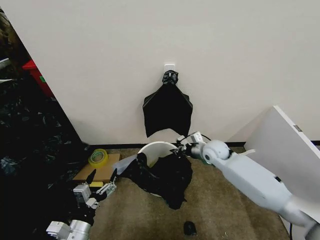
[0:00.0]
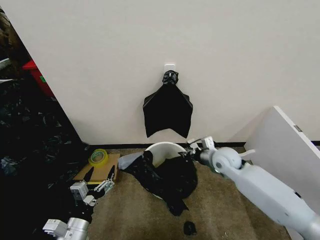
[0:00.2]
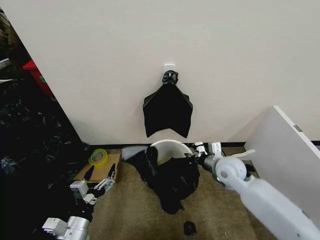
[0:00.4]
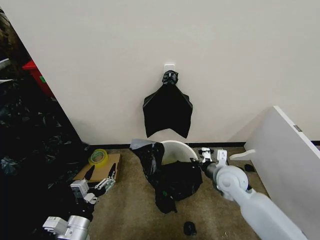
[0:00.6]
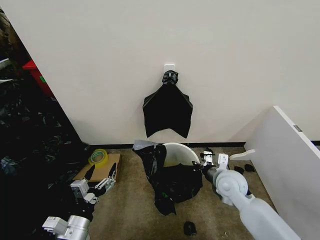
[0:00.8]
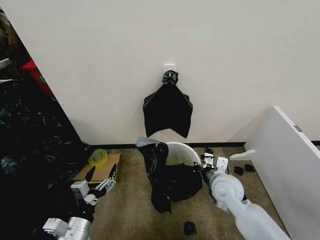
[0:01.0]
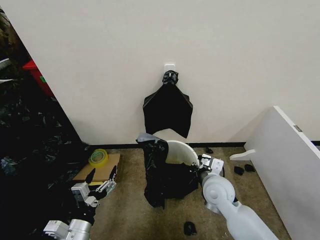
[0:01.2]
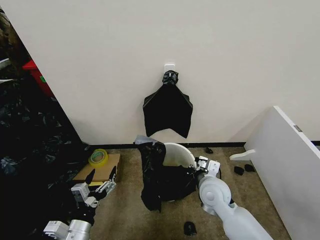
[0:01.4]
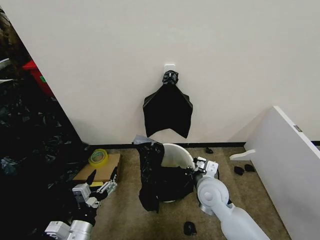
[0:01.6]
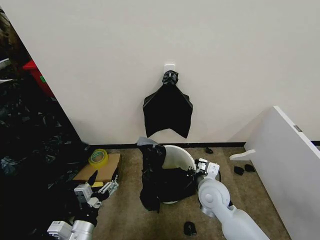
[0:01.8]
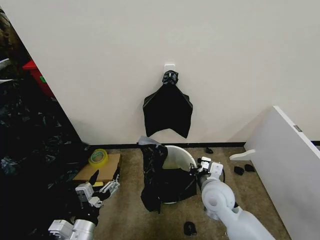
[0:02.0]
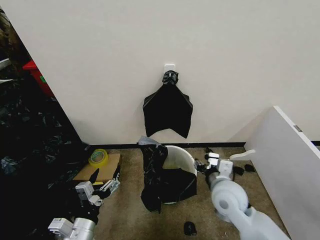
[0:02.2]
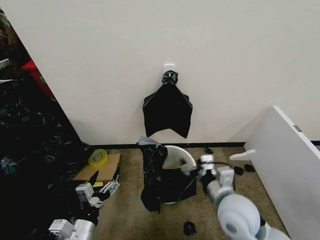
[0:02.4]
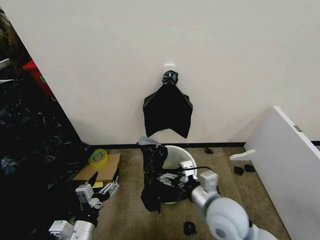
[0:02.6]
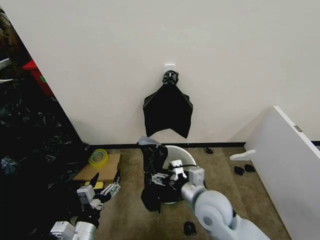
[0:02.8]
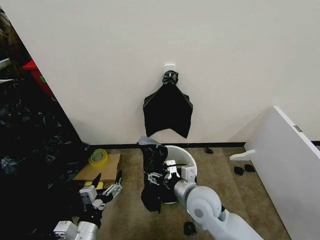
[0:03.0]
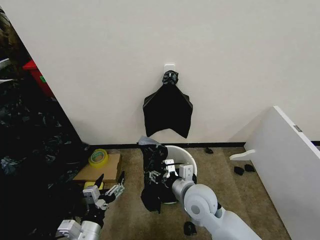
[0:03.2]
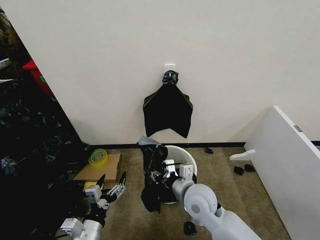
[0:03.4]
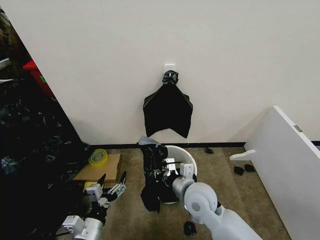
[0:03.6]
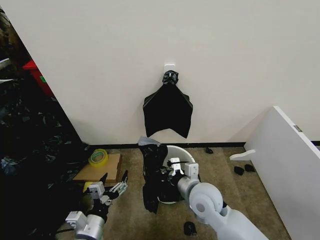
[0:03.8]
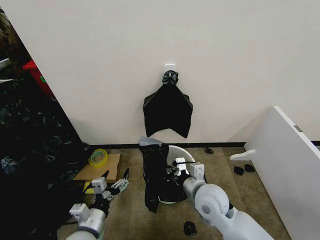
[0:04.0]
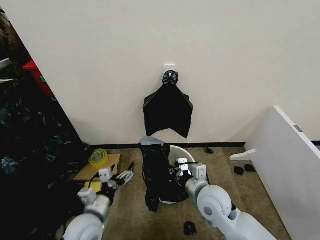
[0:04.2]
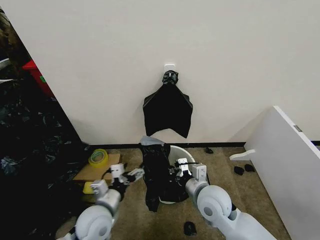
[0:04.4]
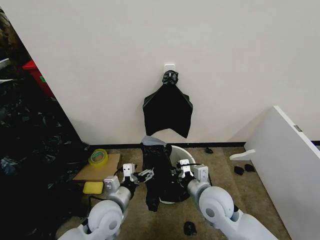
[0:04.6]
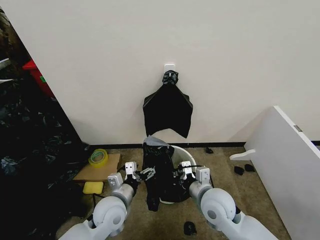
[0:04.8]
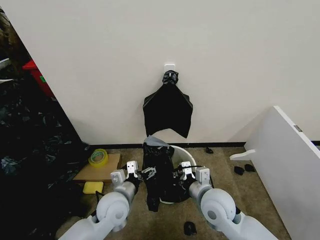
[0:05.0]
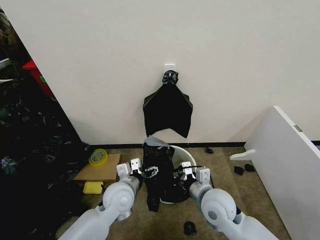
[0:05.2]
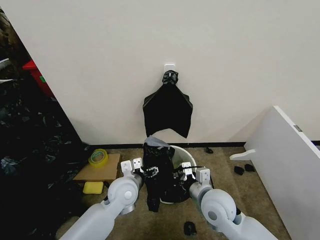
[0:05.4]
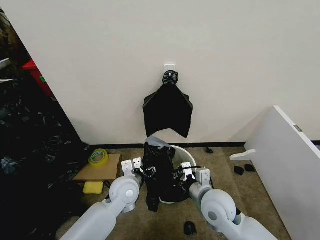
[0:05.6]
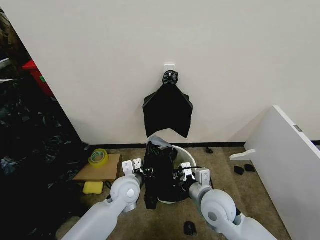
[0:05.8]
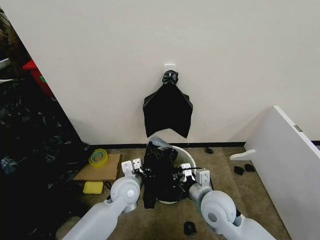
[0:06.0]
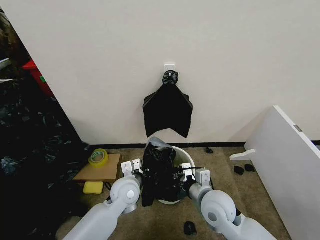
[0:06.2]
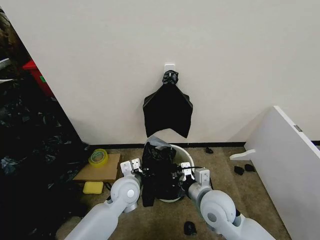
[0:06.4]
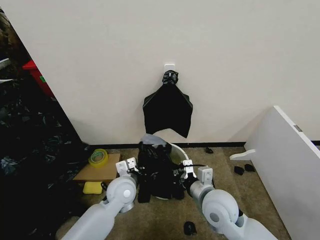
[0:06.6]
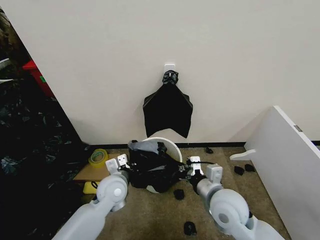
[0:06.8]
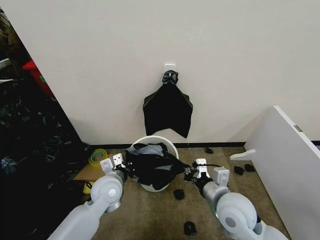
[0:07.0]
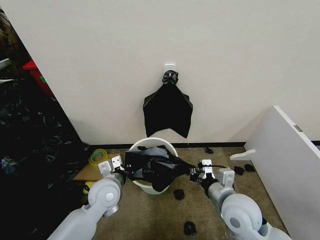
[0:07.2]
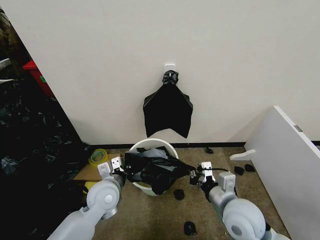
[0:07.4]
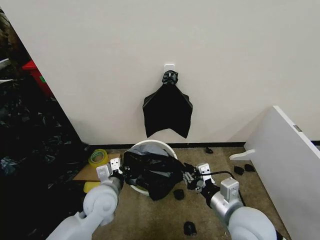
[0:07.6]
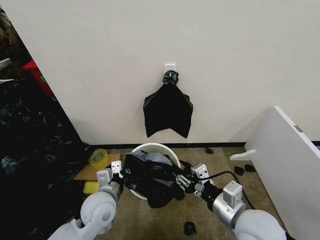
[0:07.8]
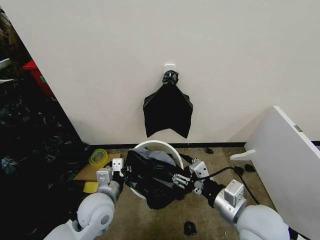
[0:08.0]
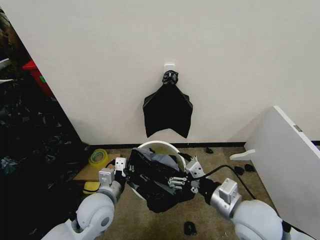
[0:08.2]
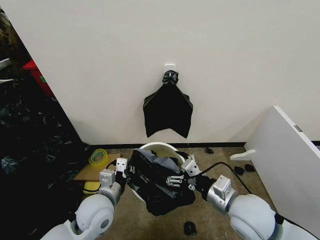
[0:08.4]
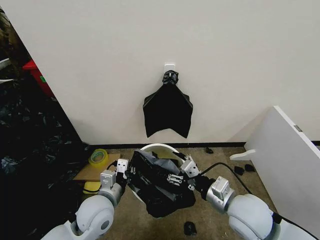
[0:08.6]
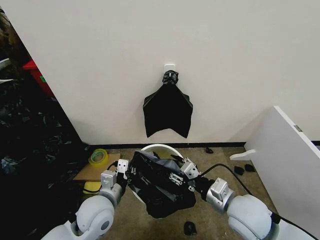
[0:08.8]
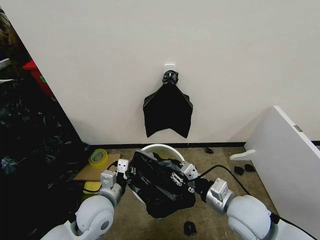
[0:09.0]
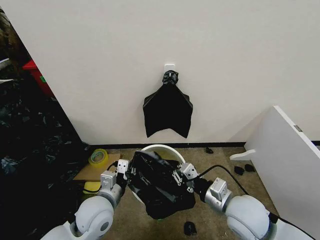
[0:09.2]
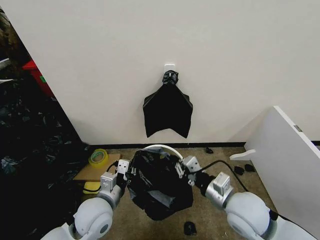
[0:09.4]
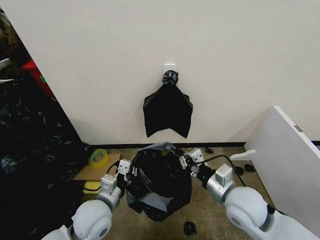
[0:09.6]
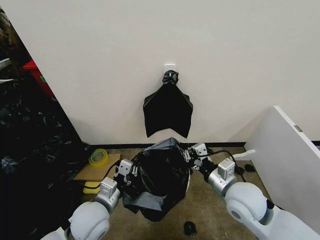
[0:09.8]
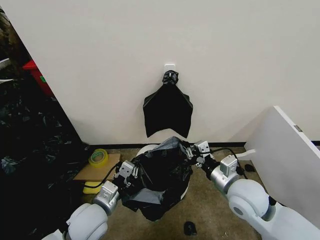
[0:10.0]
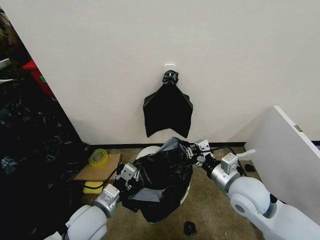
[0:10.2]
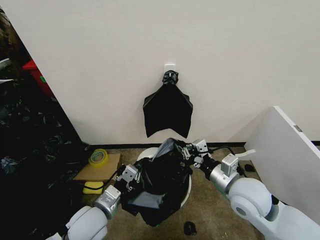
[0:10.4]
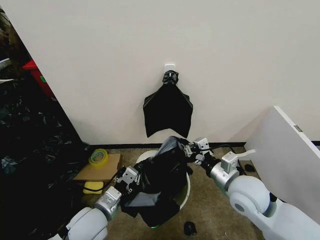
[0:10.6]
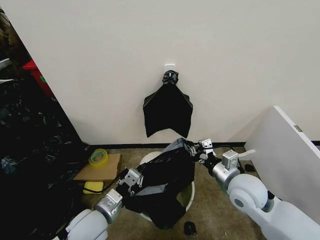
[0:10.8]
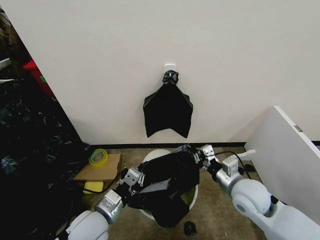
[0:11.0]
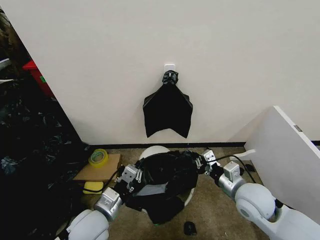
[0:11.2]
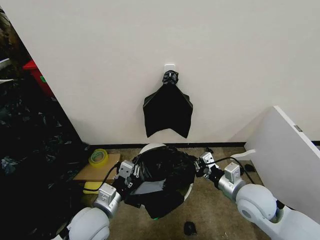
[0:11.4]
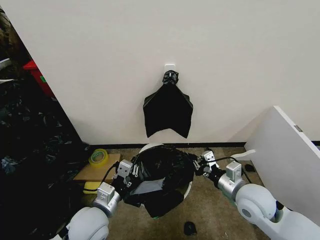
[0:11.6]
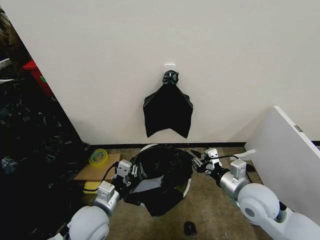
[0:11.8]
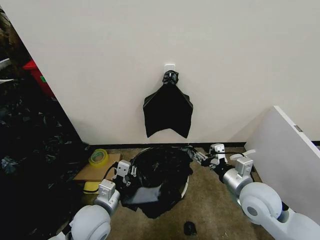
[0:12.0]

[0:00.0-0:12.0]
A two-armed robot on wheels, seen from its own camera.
Task of the whole recording: Place the garbage bag over the trash bin.
0:00.0 to 0:01.6: The right gripper travels backward by about 15 cm.
0:01.6 to 0:03.0: The right gripper opens.
0:03.0 to 0:04.4: The left gripper is displaced forward by about 10 cm. Meanwhile the right gripper closes its fingers.
0:04.4 to 0:06.0: The left gripper goes roughly 10 cm forward and to the right, and closes.
0:06.0 to 0:07.6: The right gripper goes some 5 cm backward, while the left gripper moves to the left, approximately 5 cm.
0:07.6 to 0:09.0: The right gripper opens, then closes once more.
0:10.4 to 0:12.0: The right gripper ends up some 5 cm from where it was, and opens its fingers.

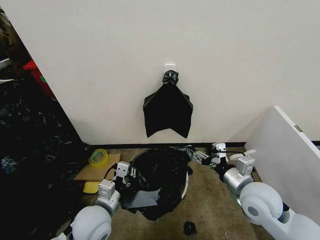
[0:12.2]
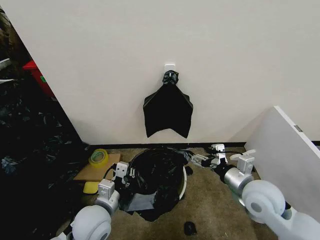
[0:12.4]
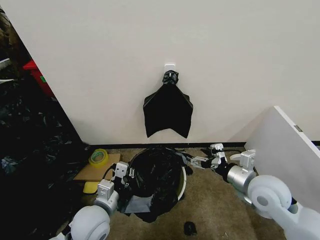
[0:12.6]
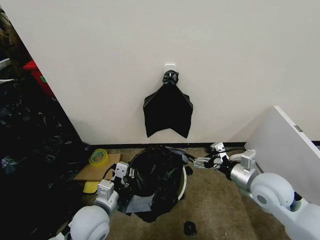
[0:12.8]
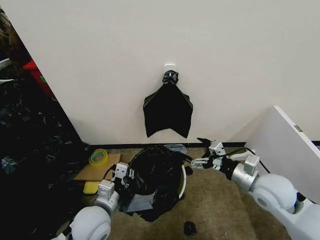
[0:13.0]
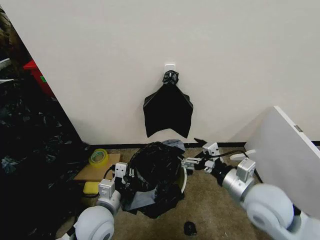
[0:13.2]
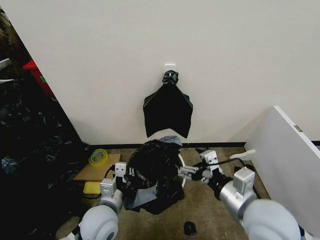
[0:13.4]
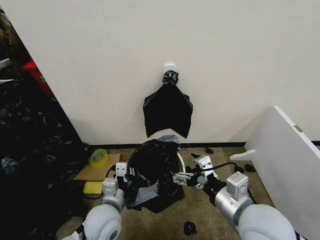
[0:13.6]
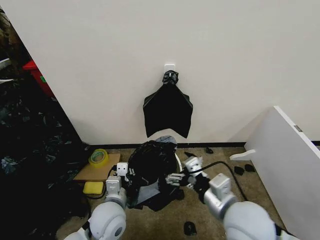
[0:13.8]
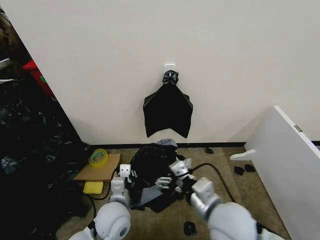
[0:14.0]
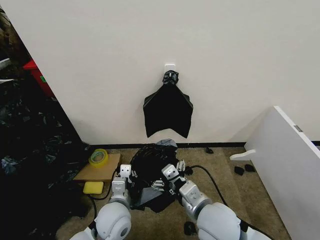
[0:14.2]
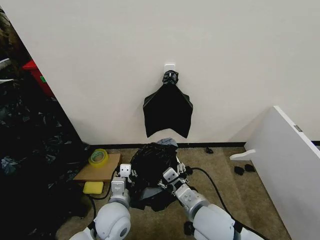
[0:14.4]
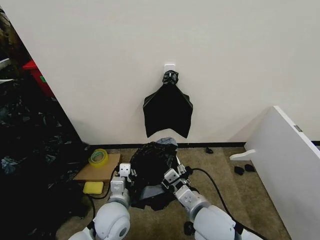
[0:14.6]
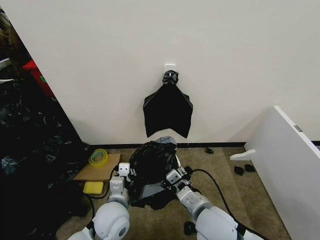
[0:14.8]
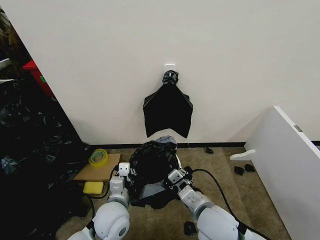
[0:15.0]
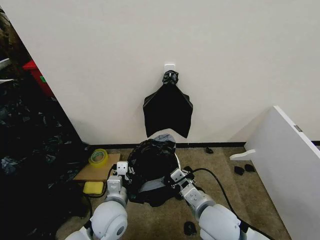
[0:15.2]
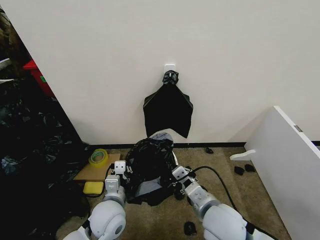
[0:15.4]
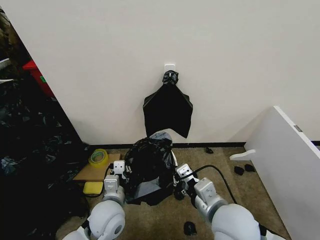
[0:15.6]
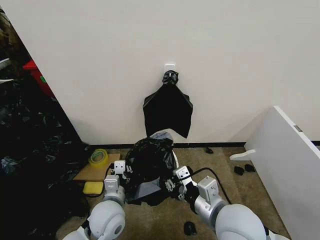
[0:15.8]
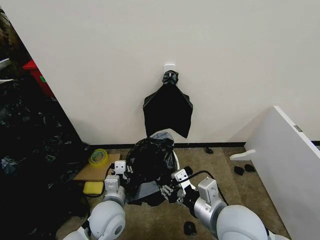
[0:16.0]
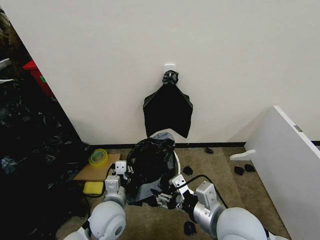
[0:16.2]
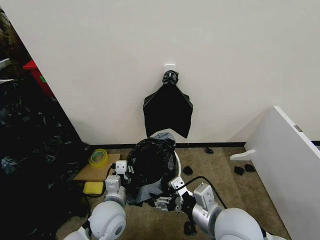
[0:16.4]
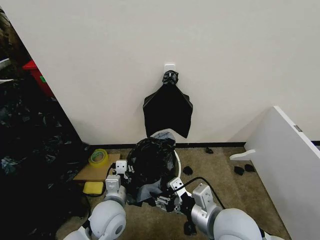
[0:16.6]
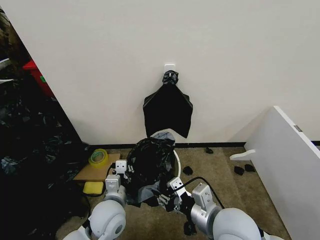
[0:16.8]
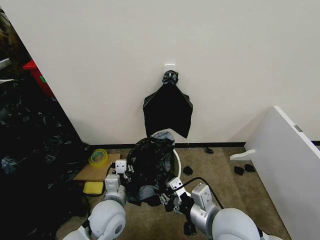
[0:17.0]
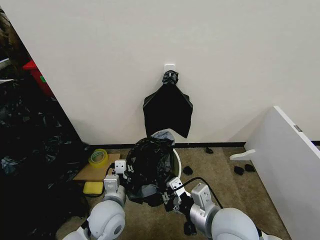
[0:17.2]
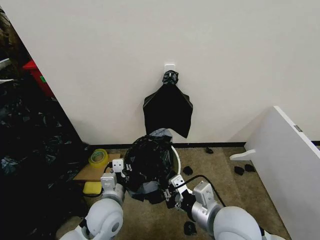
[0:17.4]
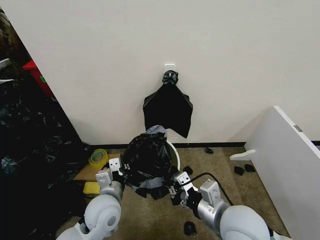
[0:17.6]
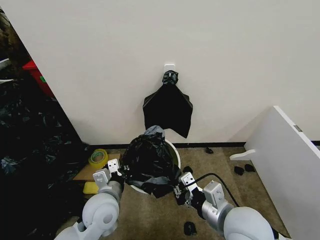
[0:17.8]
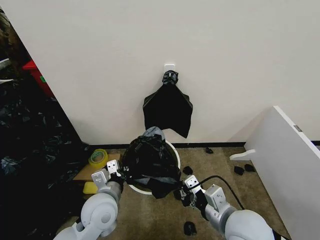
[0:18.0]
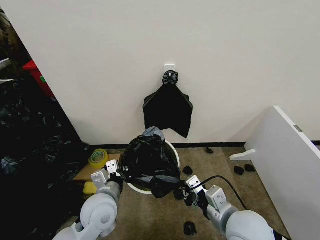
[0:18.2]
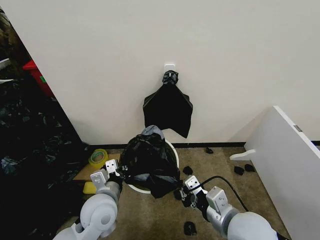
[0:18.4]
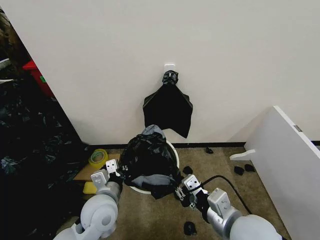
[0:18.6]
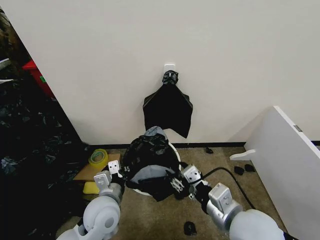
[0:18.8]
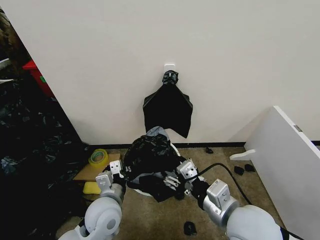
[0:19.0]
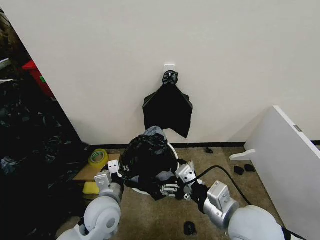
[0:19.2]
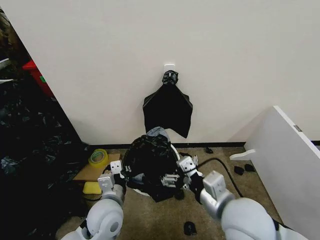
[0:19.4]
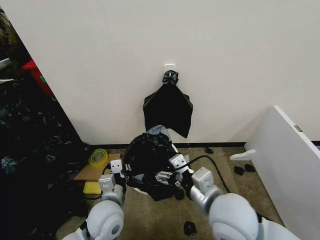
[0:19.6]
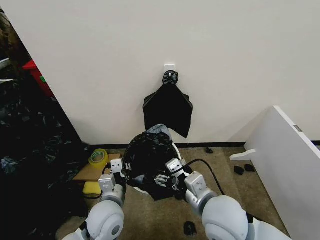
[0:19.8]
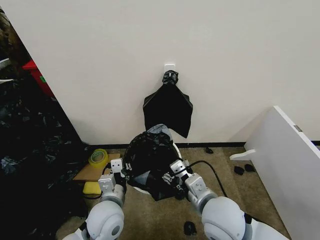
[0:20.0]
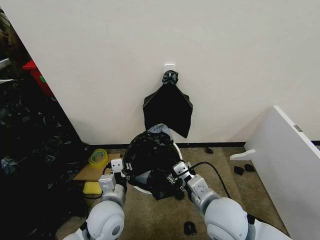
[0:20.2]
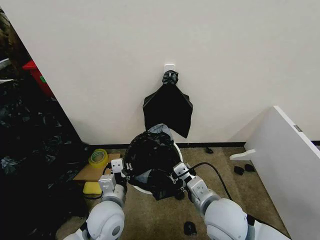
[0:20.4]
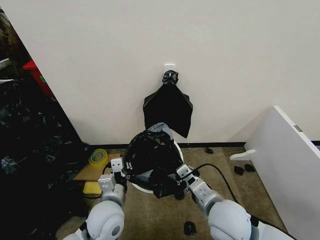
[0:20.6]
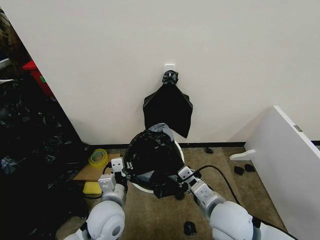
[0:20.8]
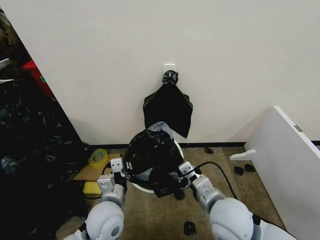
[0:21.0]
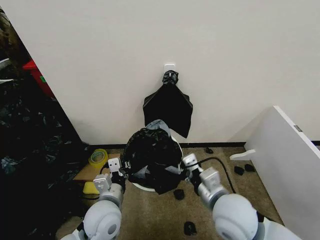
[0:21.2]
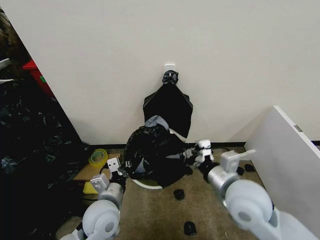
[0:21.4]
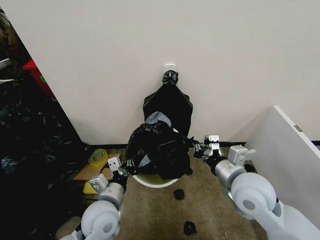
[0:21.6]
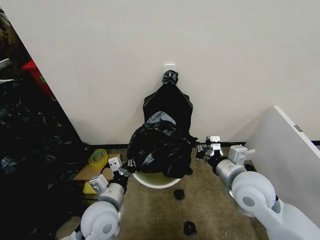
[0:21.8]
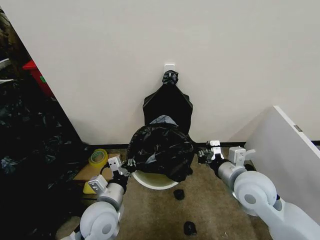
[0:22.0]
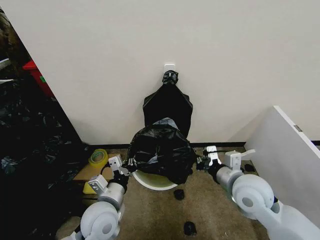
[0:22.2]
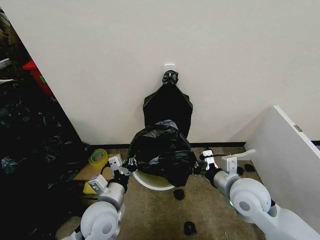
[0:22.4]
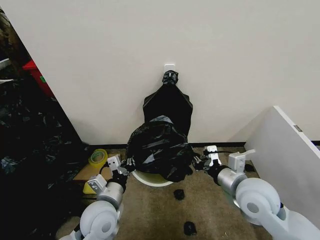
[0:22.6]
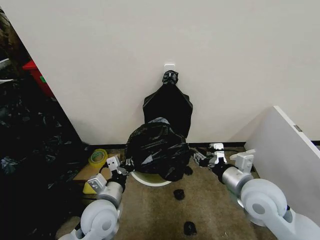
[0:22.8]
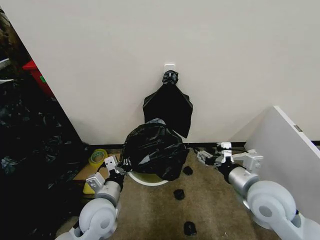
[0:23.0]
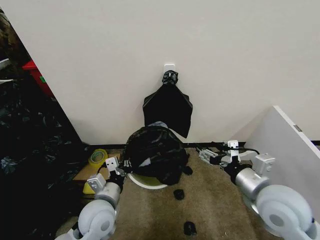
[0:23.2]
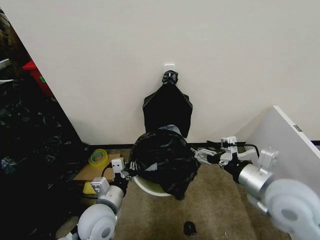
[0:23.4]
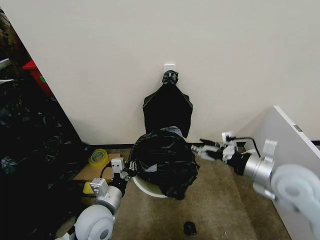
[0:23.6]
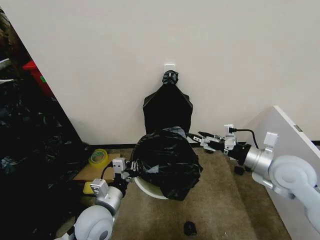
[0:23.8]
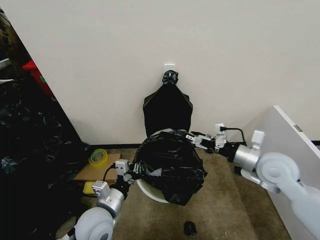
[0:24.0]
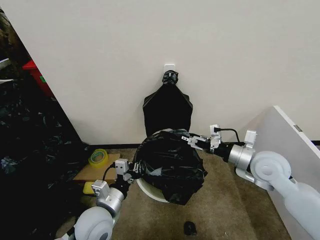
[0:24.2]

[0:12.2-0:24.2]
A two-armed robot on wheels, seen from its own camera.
Task of the whole recording: Place the garbage bag over the trash bin.
0:12.2 to 0:13.8: The right gripper moves to the left and backward, about 10 cm.
0:13.8 to 0:15.2: The right gripper heads downward, covering roughly 5 cm, and closes up.
0:15.2 to 0:16.6: The right gripper travels upward by roughly 5 cm, and opens up.
0:16.6 to 0:18.2: The right gripper closes.
0:18.2 to 0:19.8: The right gripper is displaced to the left by about 5 cm, and opens.
0:19.8 to 0:21.2: The right gripper closes up.
0:21.2 to 0:22.6: The right gripper shifts approximately 5 cm to the right.
0:22.6 to 0:24.2: The right gripper shifts about 10 cm forward and to the right, and opens up.
